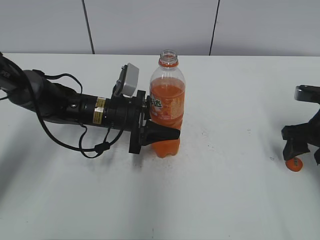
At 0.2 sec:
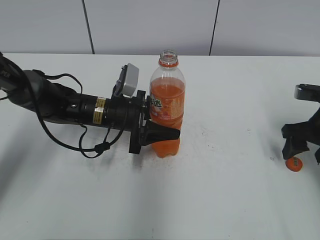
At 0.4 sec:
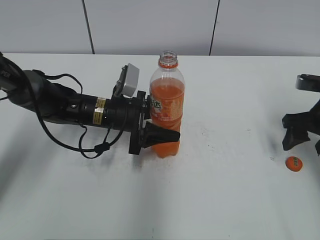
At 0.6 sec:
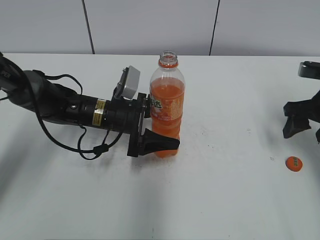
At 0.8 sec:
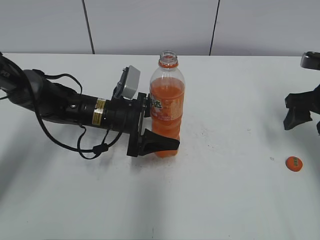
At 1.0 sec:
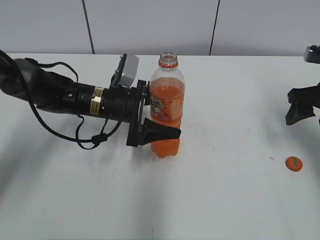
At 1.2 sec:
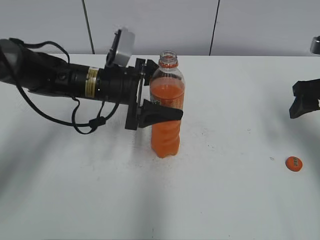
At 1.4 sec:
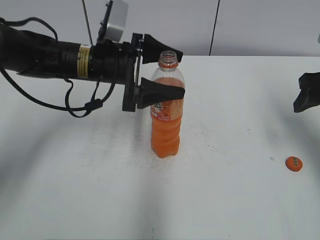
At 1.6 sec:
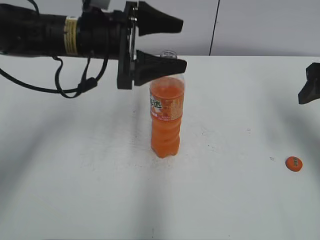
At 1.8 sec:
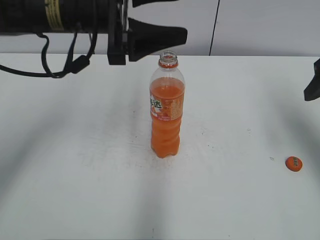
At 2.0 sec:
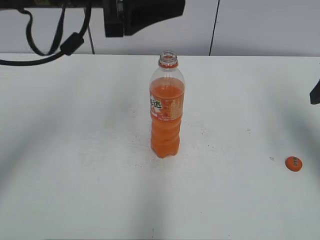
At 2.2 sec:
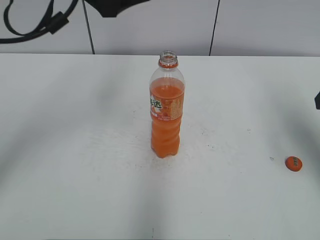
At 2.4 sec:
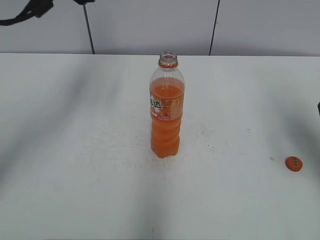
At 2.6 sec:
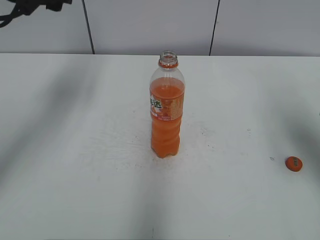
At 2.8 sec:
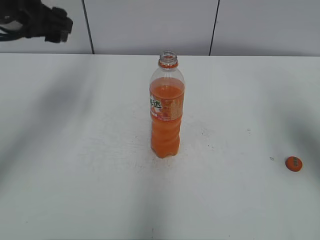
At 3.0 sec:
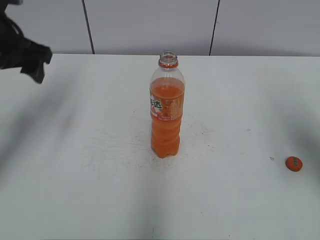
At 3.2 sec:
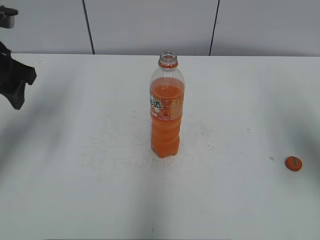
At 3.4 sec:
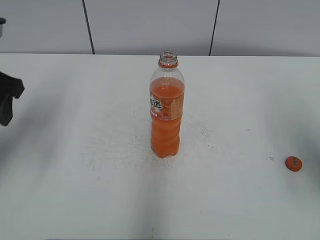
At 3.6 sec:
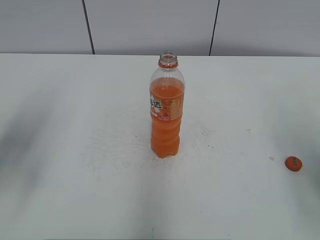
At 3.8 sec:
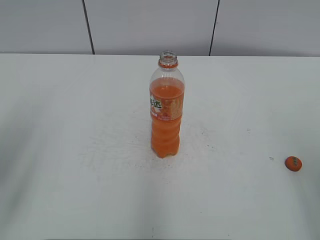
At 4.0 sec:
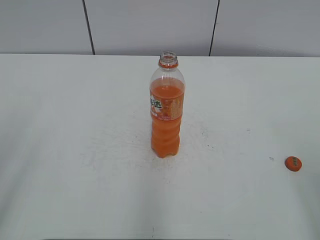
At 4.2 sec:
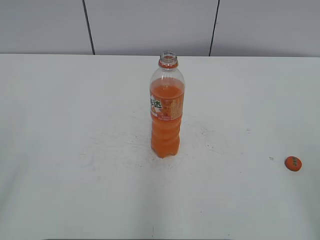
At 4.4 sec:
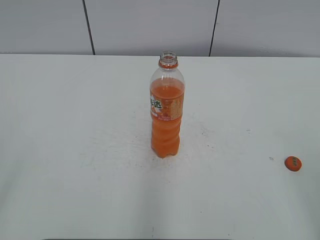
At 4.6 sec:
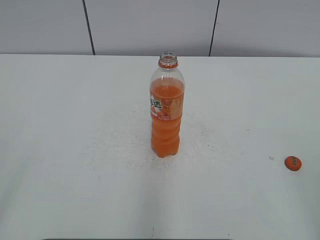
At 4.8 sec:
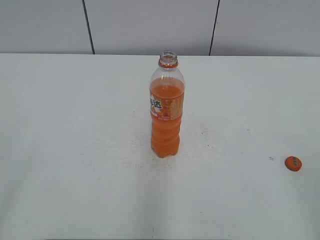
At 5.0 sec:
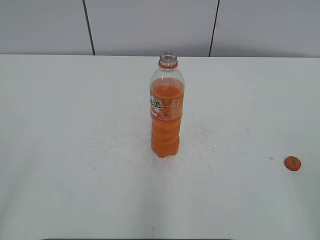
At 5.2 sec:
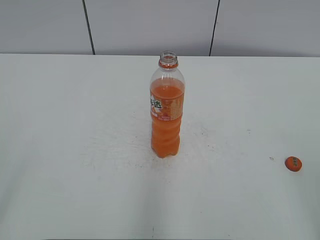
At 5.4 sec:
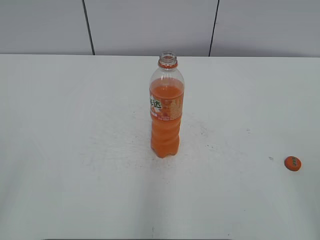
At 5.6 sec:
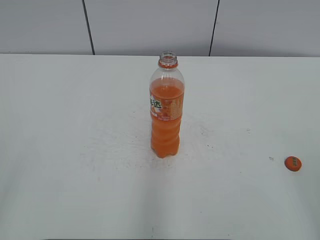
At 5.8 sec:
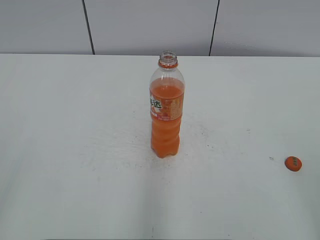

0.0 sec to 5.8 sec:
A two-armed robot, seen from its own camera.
0.0 sec to 1.4 sec: Both grippers move upward, some 10 cm. The left gripper opens.
1.4 sec to 2.8 sec: The left gripper is displaced upward and to the left by roughly 20 cm, while the right gripper goes roughly 10 cm backward and upward.
2.8 sec to 4.4 sec: The left gripper is displaced backward by approximately 35 cm. The right gripper heads backward, covering approximately 20 cm.
